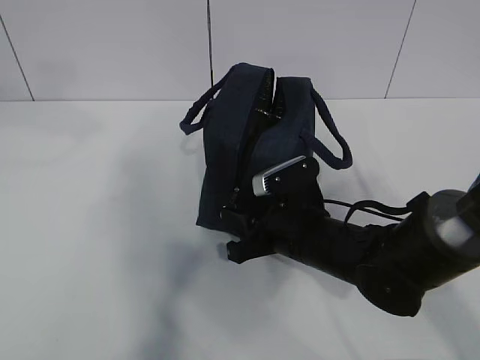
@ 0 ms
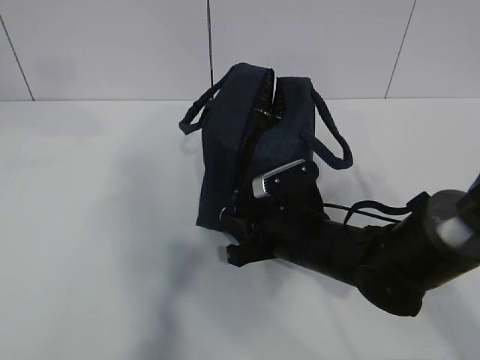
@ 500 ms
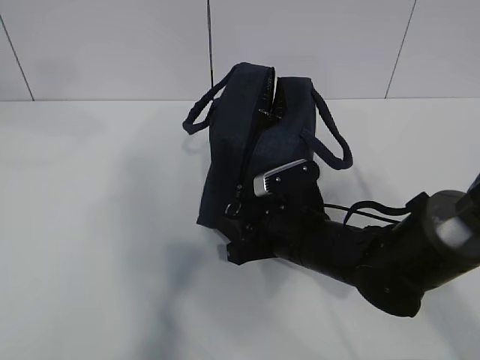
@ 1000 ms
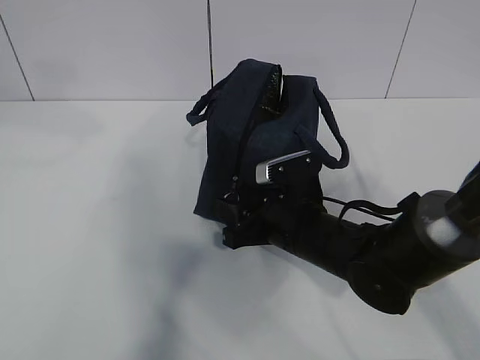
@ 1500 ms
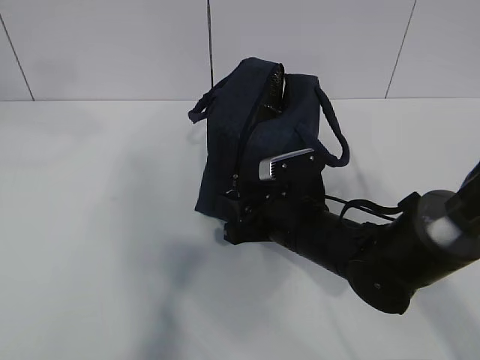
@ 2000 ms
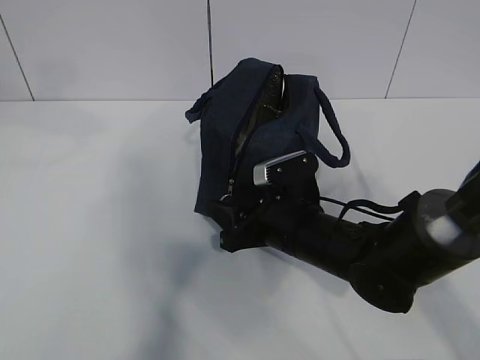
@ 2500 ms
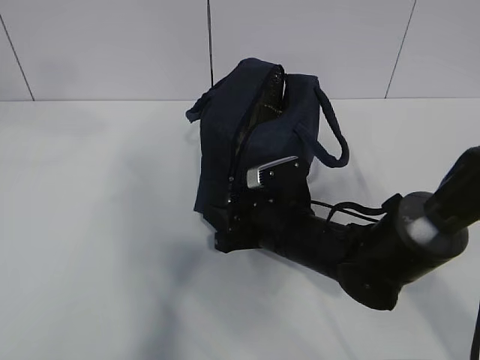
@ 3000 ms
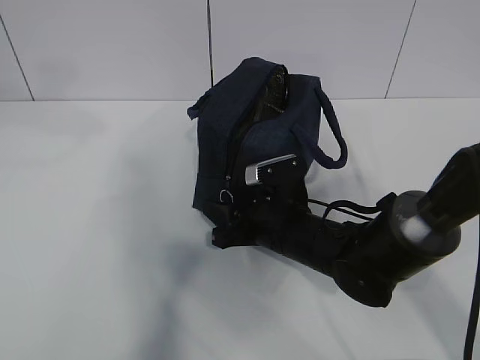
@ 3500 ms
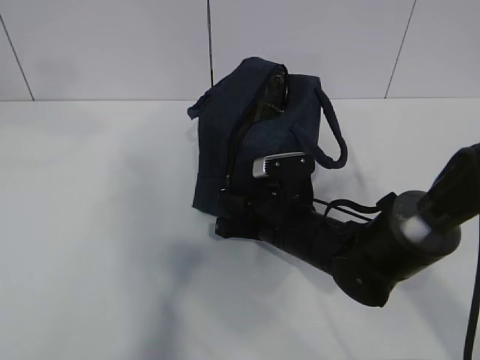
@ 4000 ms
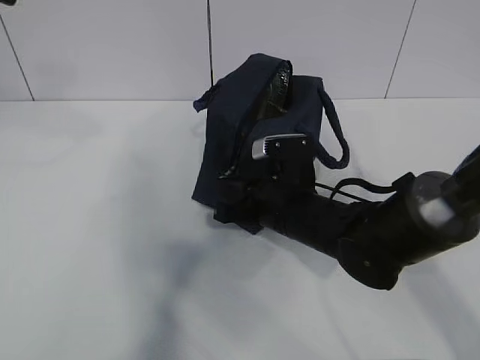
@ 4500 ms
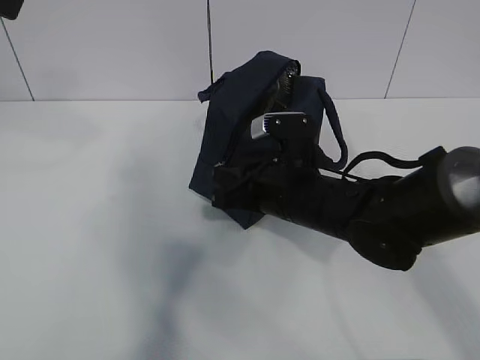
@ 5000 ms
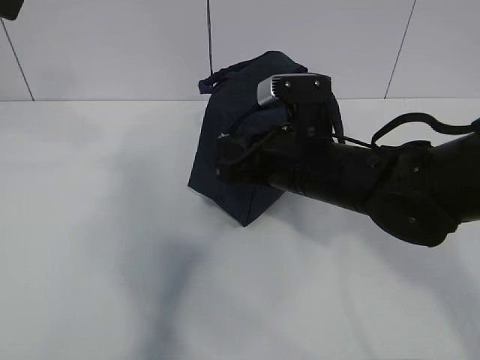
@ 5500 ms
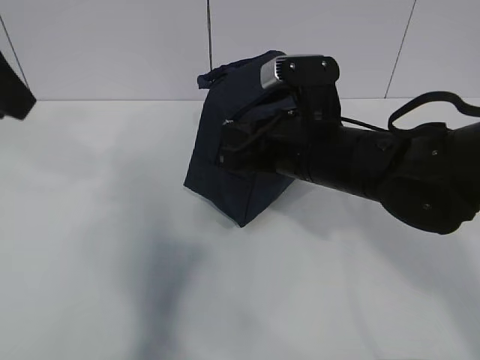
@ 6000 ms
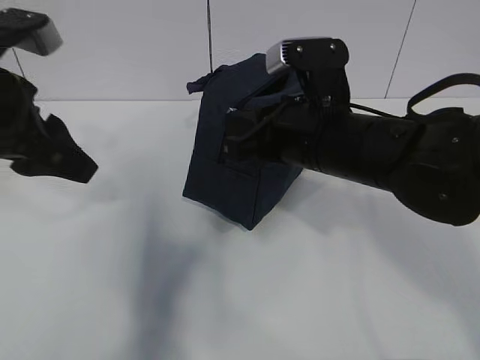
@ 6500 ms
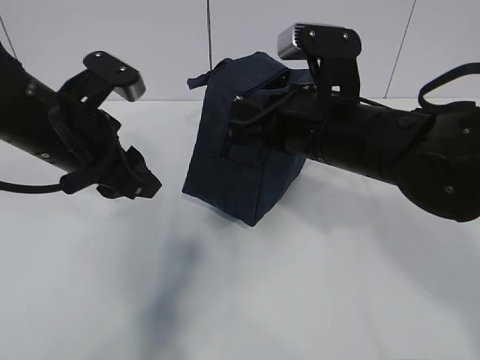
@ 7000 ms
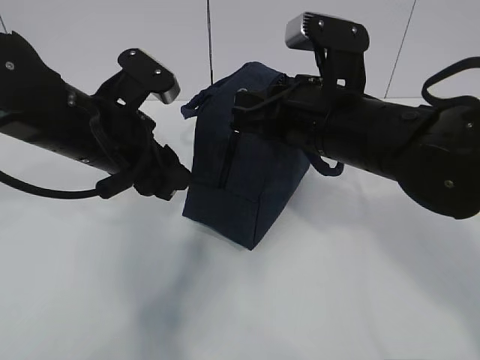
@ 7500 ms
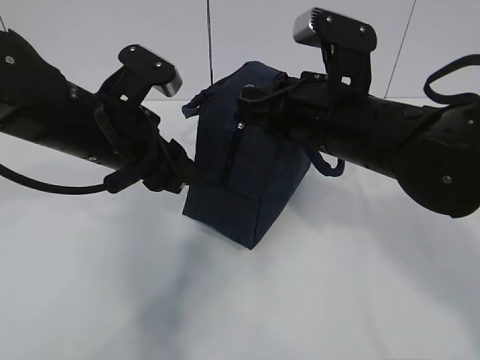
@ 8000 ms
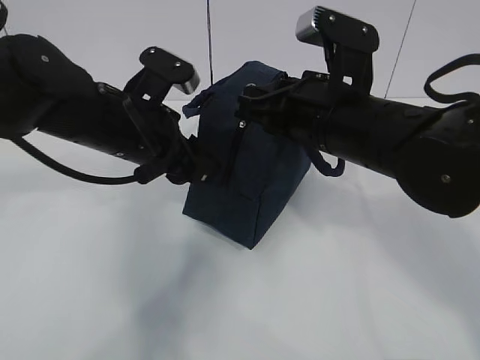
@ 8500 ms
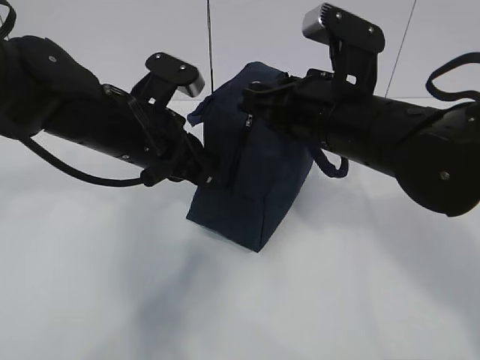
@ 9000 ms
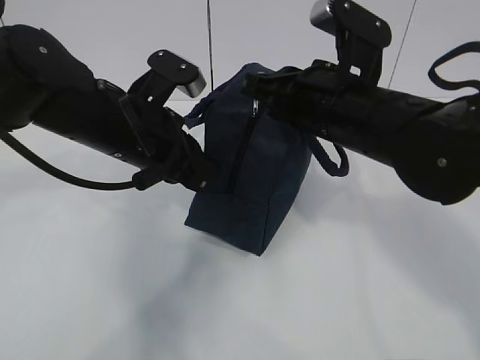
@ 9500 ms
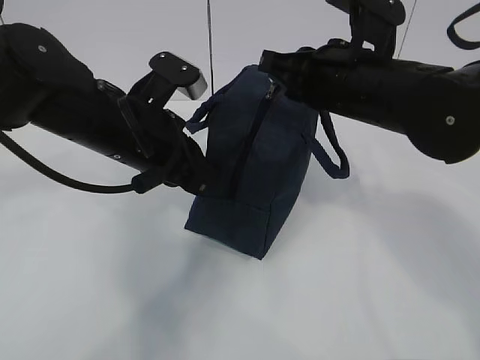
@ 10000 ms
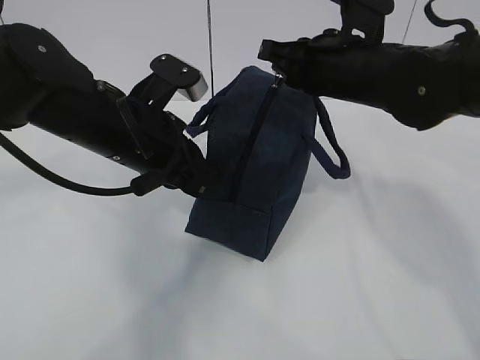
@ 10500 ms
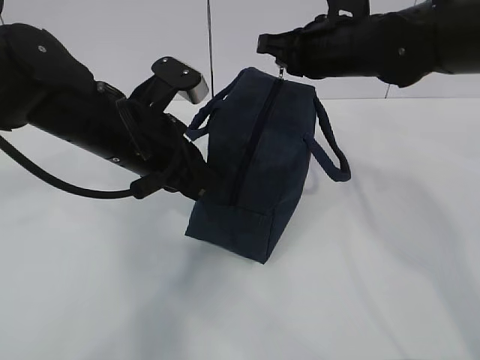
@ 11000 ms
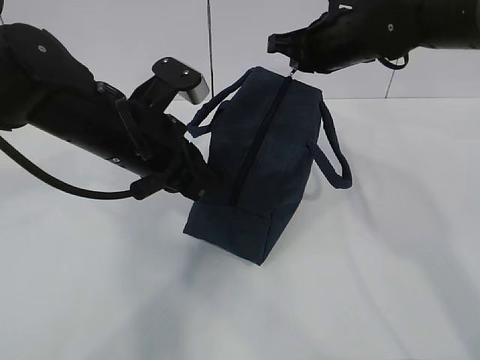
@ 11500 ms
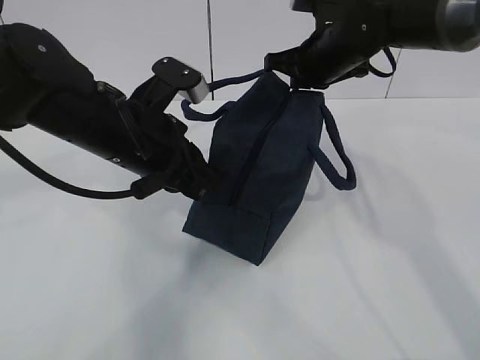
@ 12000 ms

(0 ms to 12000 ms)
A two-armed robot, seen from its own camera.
Step, 1000 ms - 5000 ms: Pull the zipper with your right hand.
Step, 5500 ms - 6000 ms: Grab the lunch bag with your left hand.
0 ms - 2000 ms: The grippers make only small movements.
2000 ms - 4000 ms: The right gripper closes.
4000 ms - 6000 ms: The left gripper heads downward, covering about 5 cm. The right gripper shifts roughly 15 cm upward.
6000 ms - 8000 ms: The left gripper heads downward and to the right, covering some 20 cm.
8000 ms - 10000 ms: The left gripper closes.
10000 ms - 12000 ms: The right gripper travels forward by some 15 cm.

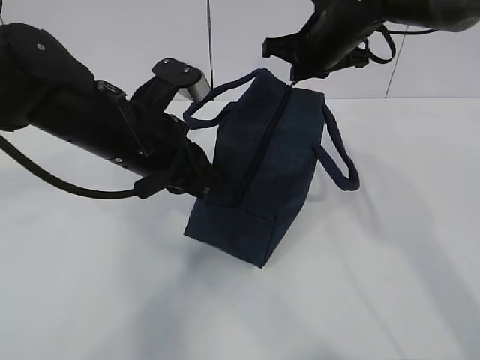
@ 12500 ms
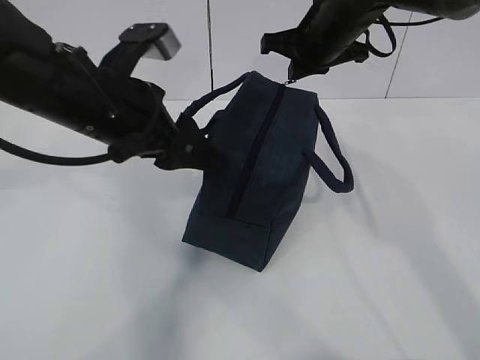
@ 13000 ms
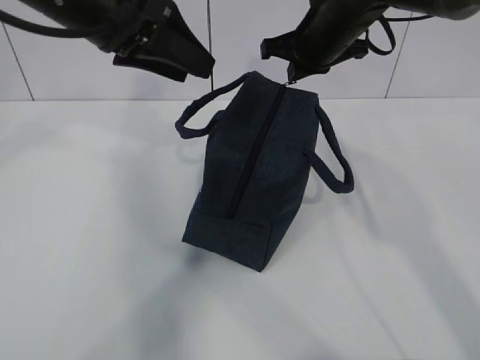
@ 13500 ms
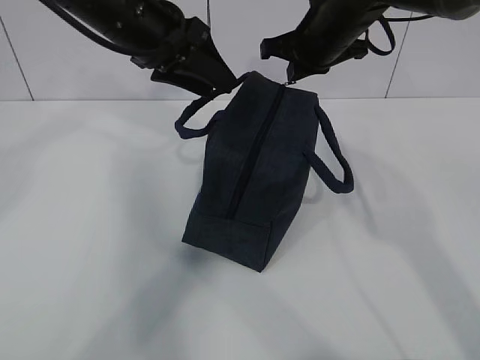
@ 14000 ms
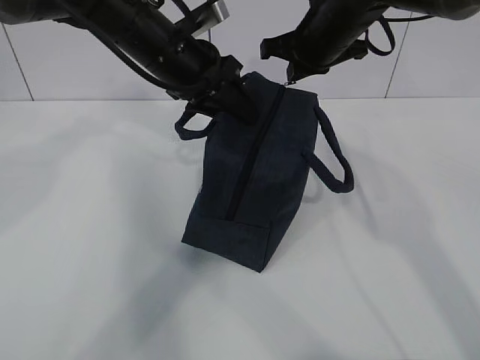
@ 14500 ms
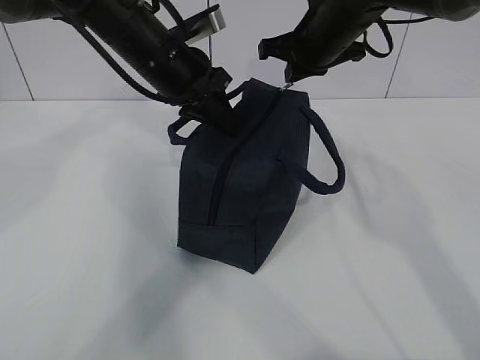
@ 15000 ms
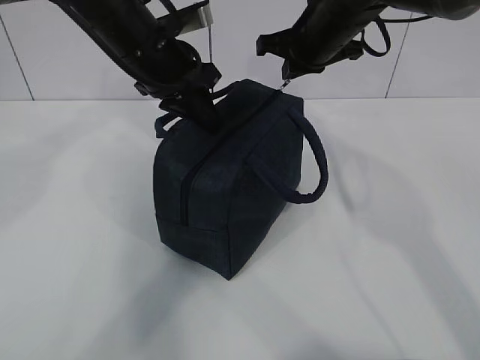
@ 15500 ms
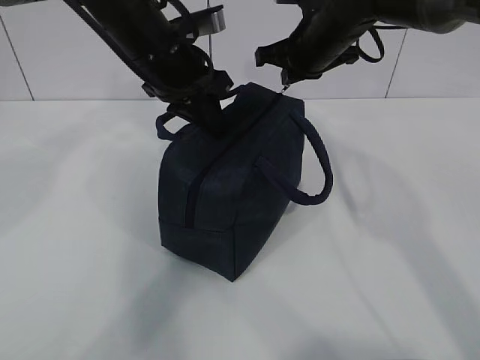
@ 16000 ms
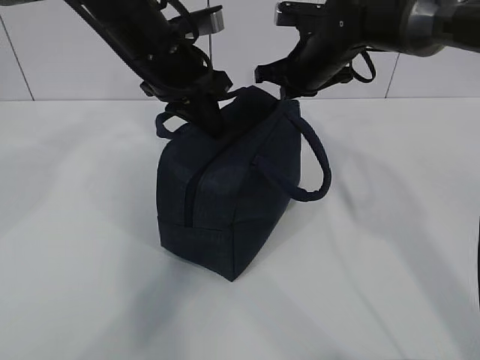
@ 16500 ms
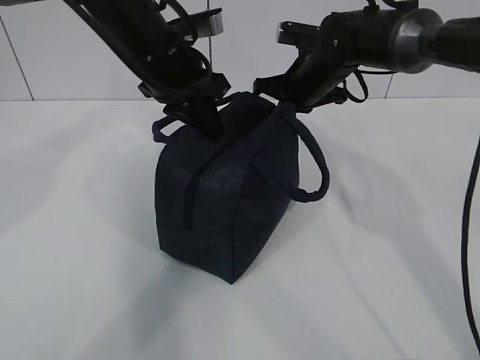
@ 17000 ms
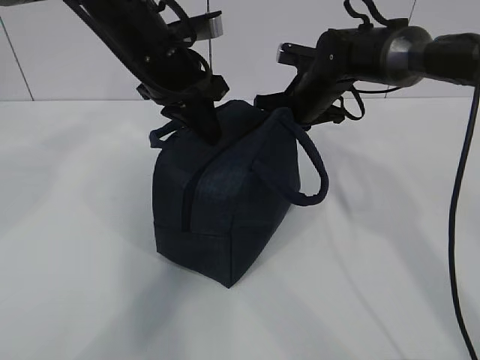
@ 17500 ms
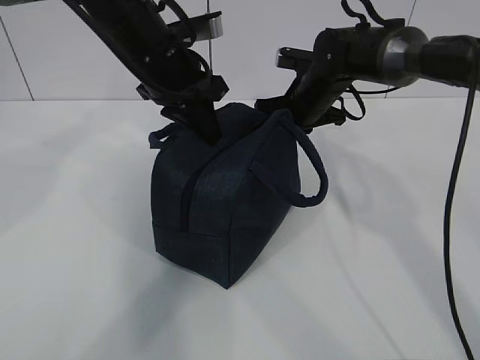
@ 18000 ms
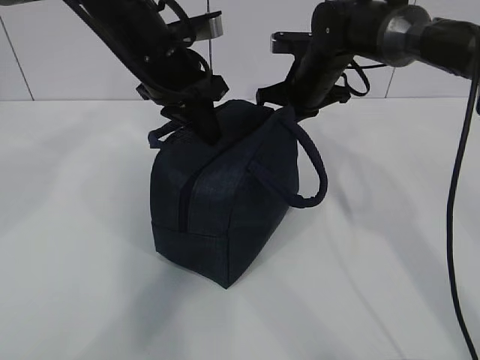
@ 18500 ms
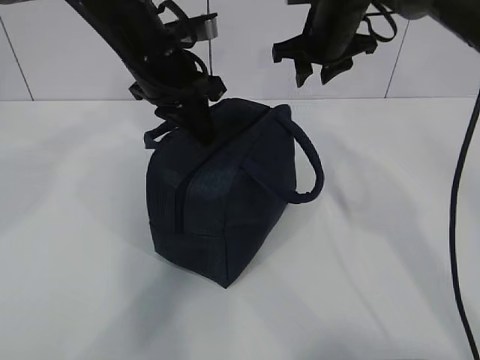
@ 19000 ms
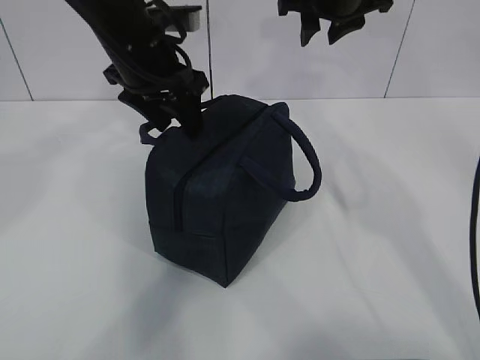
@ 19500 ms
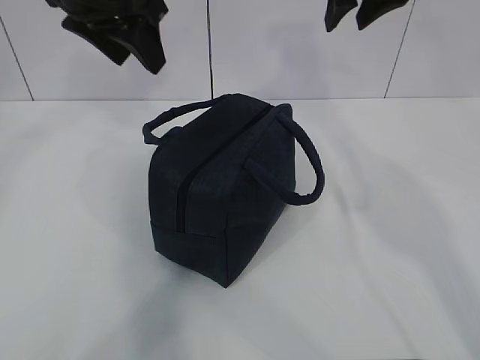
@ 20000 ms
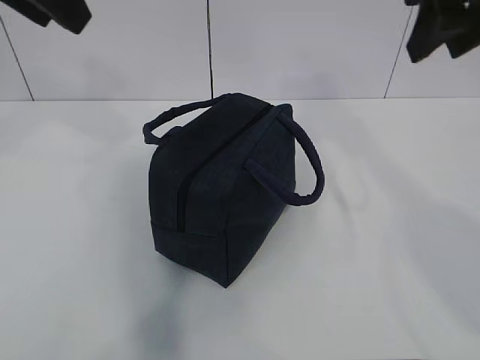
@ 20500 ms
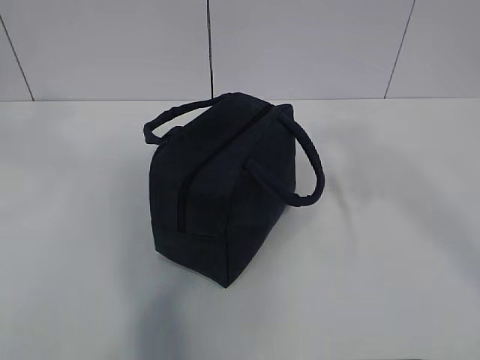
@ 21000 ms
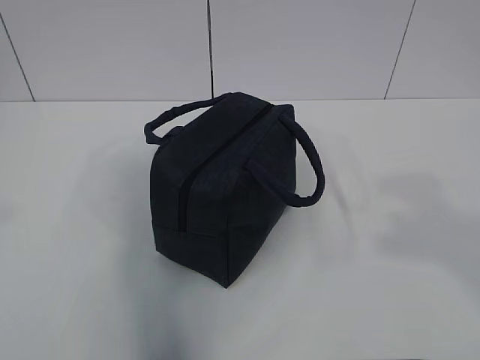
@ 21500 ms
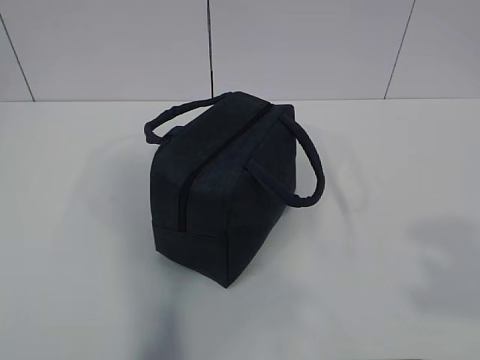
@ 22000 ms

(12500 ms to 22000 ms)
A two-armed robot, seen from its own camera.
12500 ms - 14500 ms: The left gripper travels forward by about 10 cm, moves some 10 cm upward and comes back, and opens its fingers.
14500 ms - 16500 ms: The right gripper is displaced downward by roughly 5 cm, while the left gripper closes its fingers.
16500 ms - 18000 ms: The right gripper heads downward, covering approximately 5 cm.
18000 ms - 20000 ms: The left gripper is displaced upward by roughly 10 cm, and opens its fingers. The right gripper travels upward and backward by approximately 25 cm, and opens its fingers.
20000 ms - 22000 ms: The right gripper is displaced backward by some 40 cm; the left gripper goes some 40 cm backward and to the left, and closes.

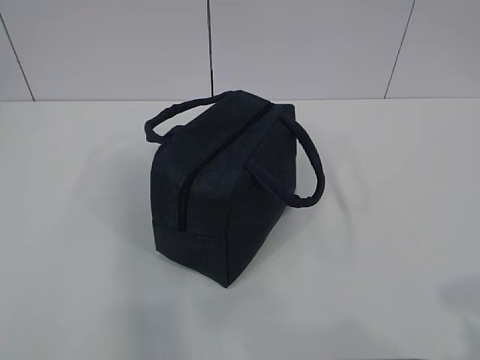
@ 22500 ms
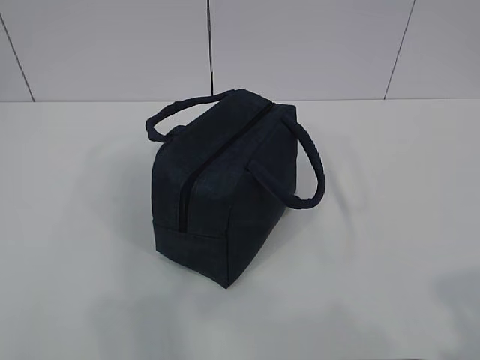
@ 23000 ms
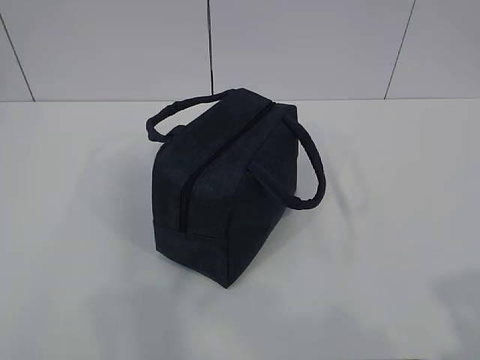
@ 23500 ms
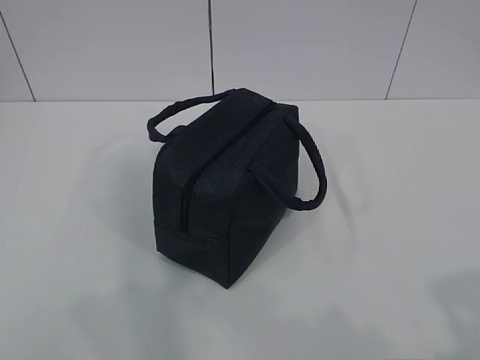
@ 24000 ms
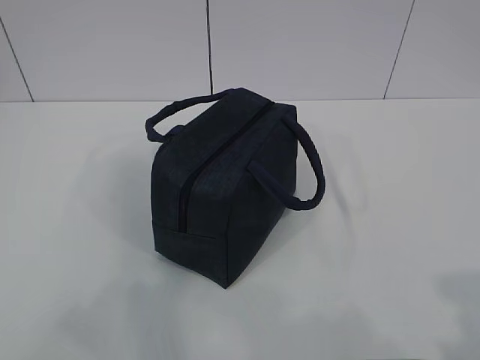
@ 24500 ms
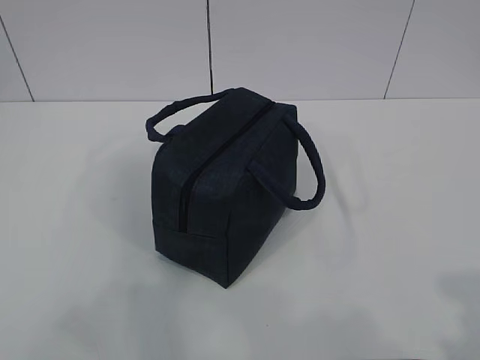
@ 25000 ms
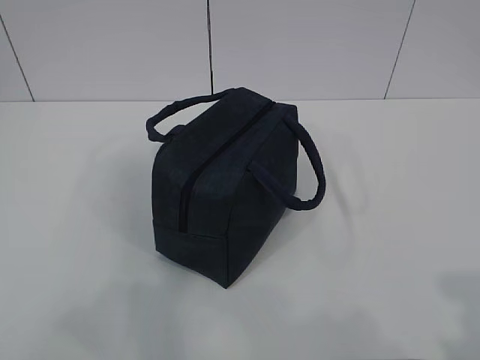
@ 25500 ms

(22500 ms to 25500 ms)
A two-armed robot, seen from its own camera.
24000 ms - 25500 ms: The grippers move only a little.

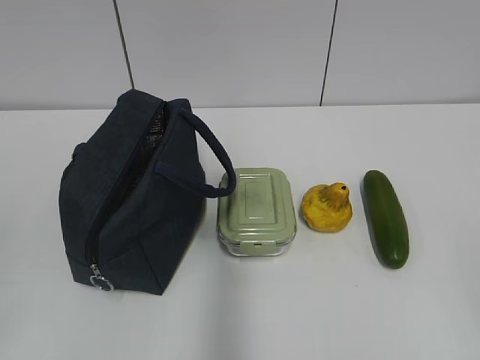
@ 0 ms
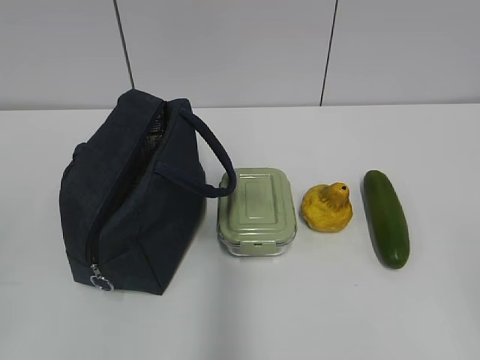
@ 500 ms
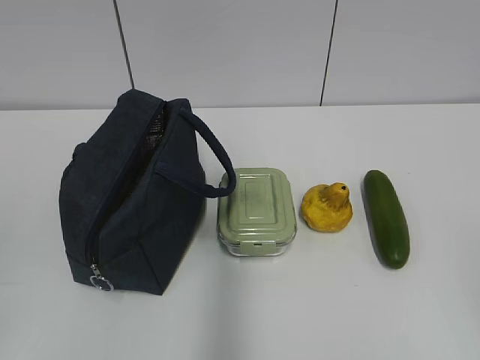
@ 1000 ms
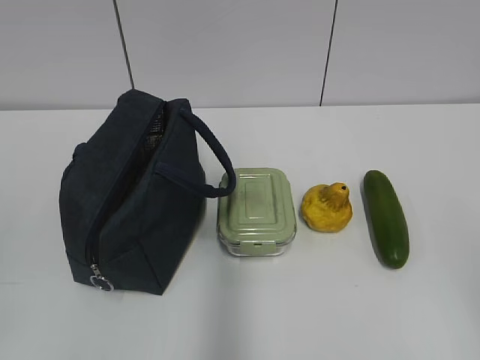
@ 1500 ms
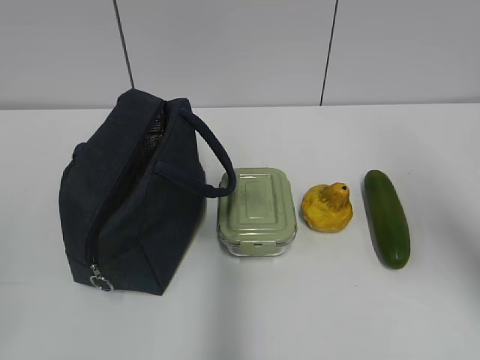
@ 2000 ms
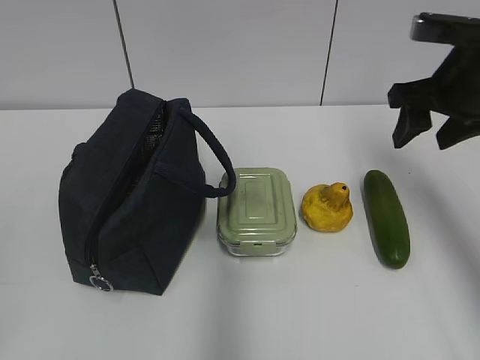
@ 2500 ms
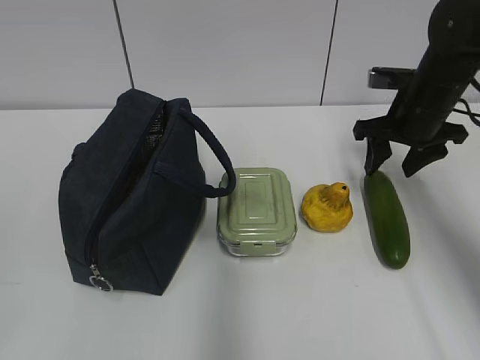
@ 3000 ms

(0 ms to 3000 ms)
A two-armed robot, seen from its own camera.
1500 ms - 3000 ms: The right gripper travels forward by roughly 40 cm.
